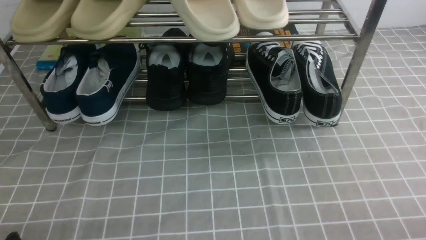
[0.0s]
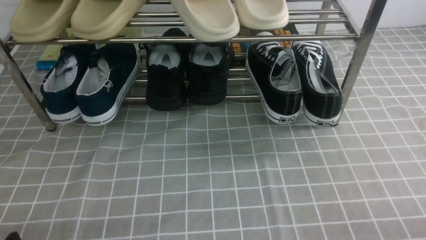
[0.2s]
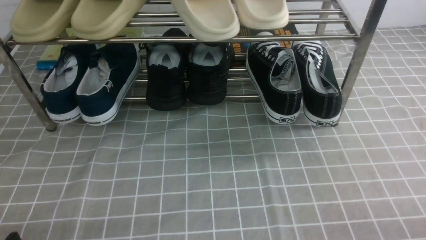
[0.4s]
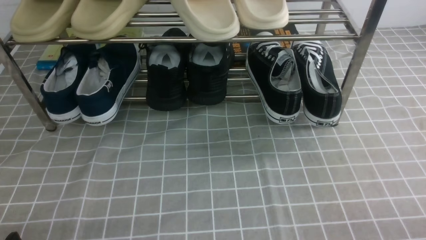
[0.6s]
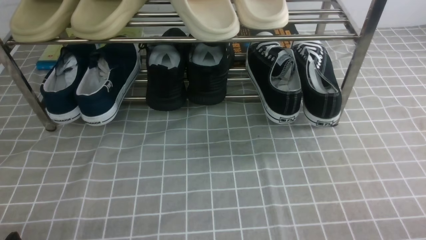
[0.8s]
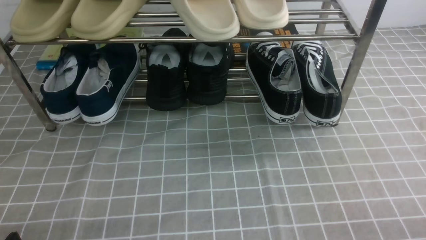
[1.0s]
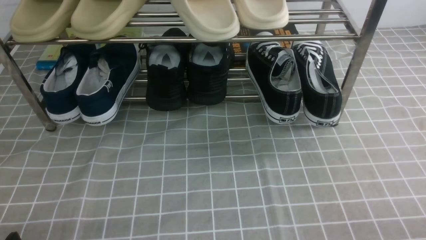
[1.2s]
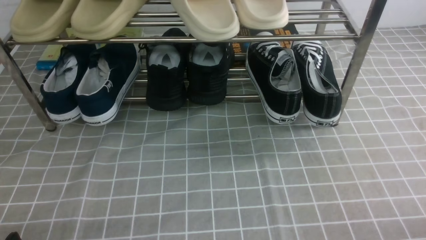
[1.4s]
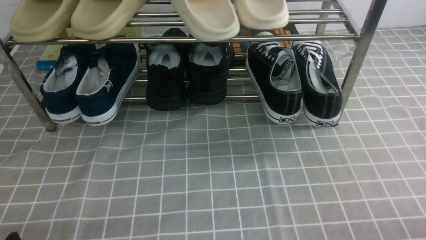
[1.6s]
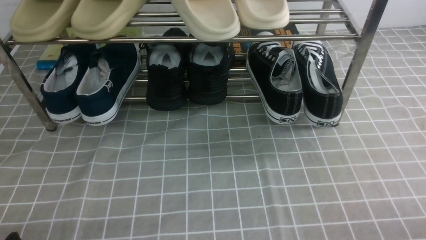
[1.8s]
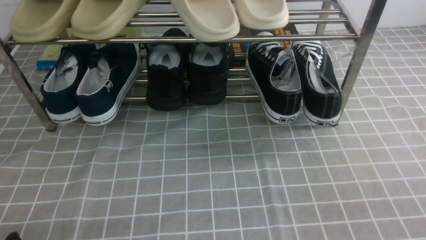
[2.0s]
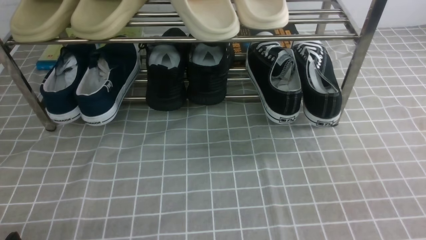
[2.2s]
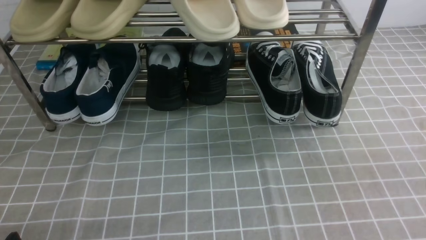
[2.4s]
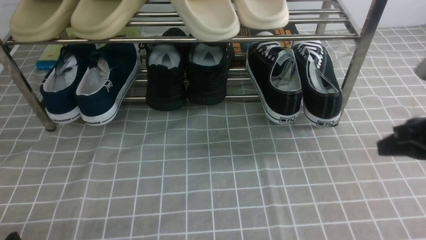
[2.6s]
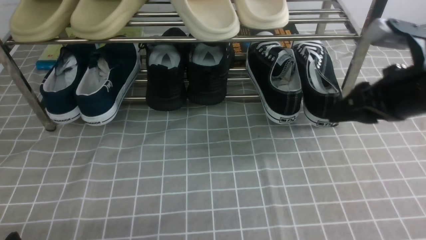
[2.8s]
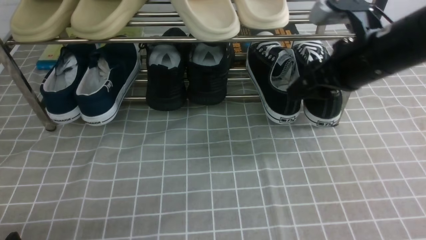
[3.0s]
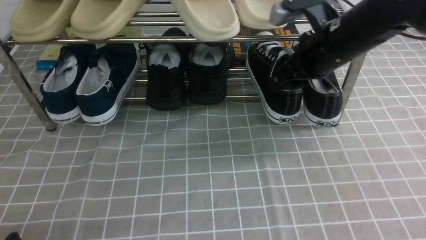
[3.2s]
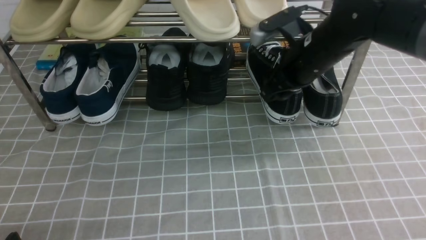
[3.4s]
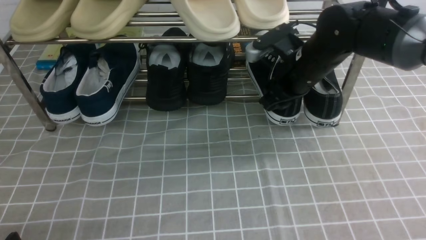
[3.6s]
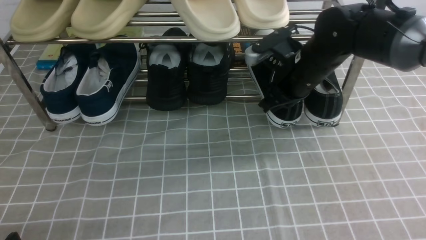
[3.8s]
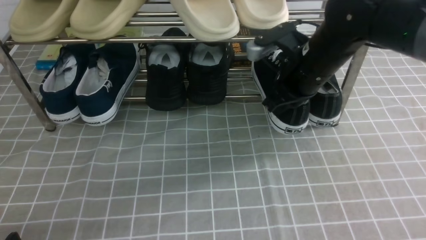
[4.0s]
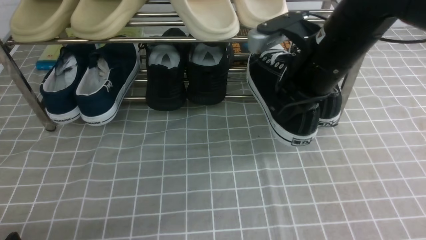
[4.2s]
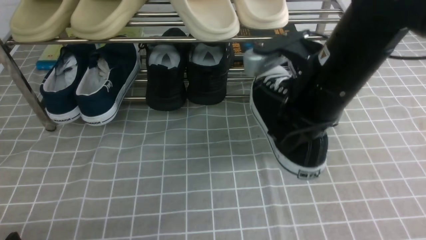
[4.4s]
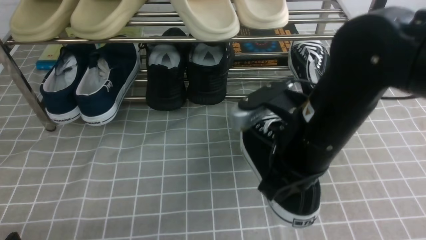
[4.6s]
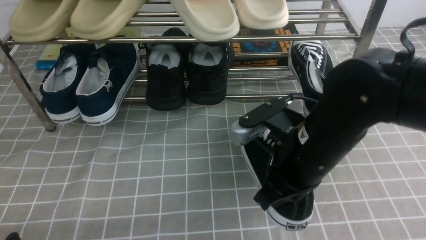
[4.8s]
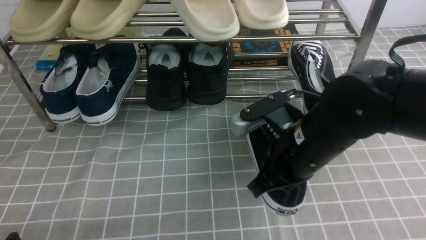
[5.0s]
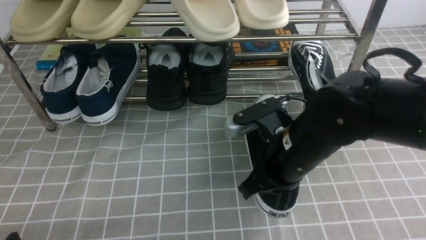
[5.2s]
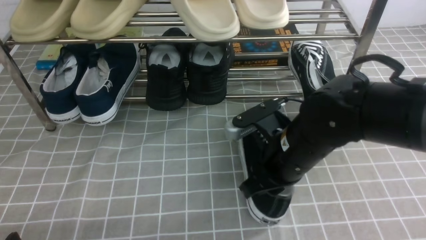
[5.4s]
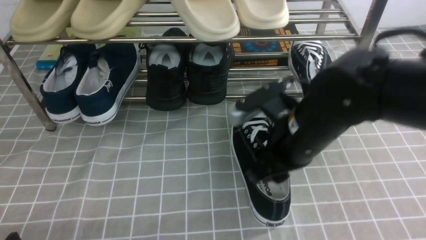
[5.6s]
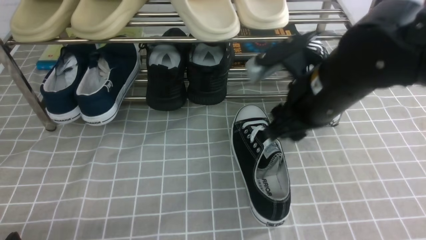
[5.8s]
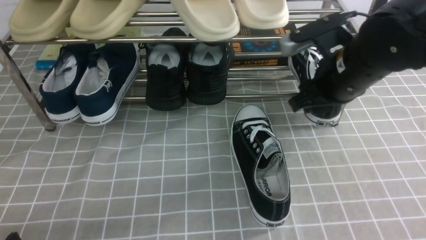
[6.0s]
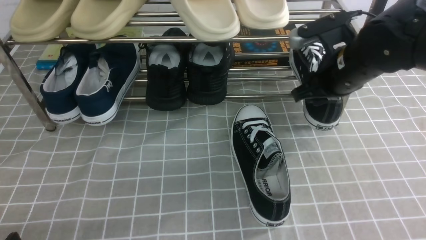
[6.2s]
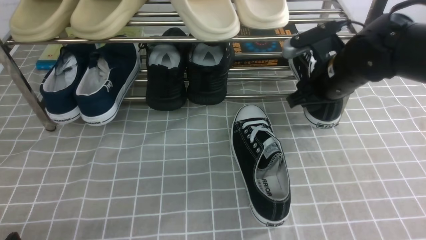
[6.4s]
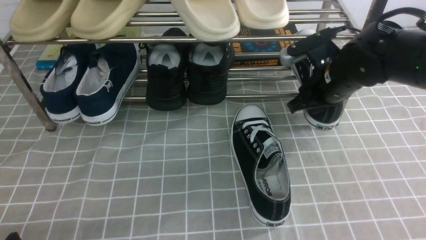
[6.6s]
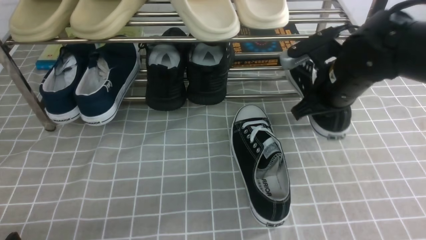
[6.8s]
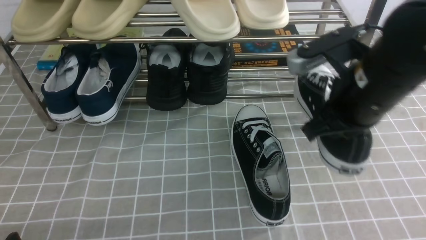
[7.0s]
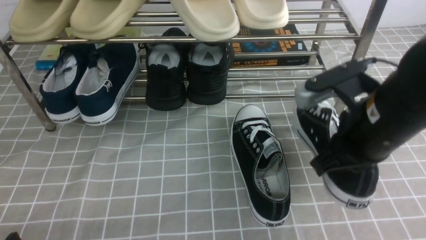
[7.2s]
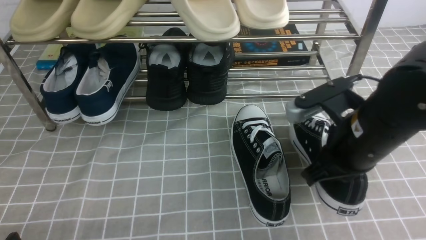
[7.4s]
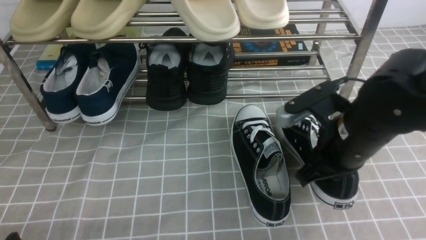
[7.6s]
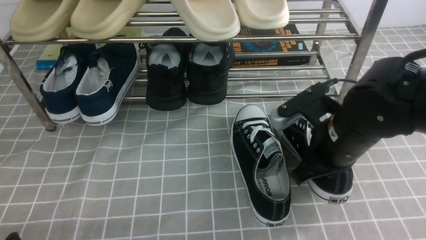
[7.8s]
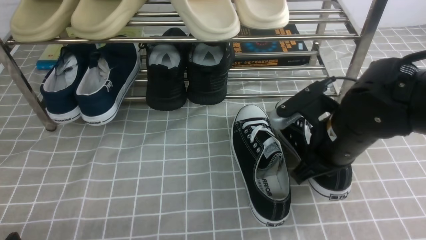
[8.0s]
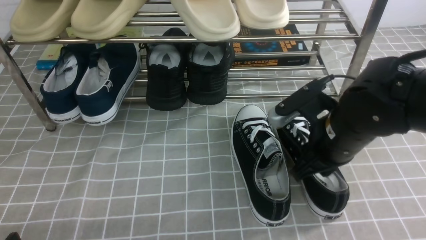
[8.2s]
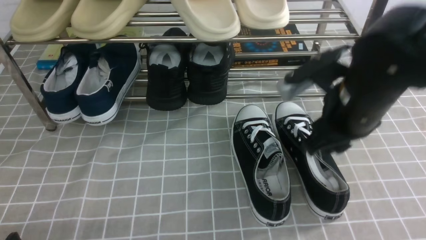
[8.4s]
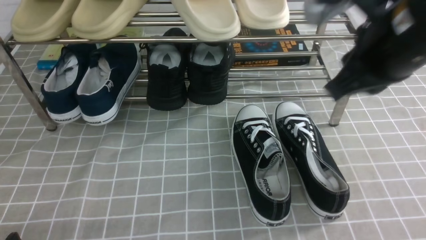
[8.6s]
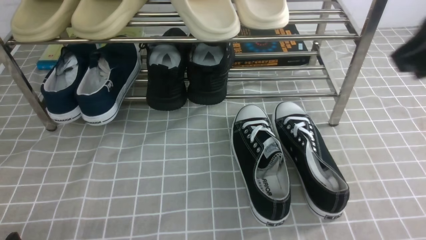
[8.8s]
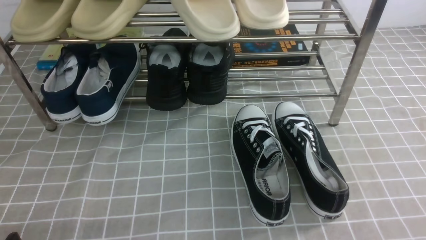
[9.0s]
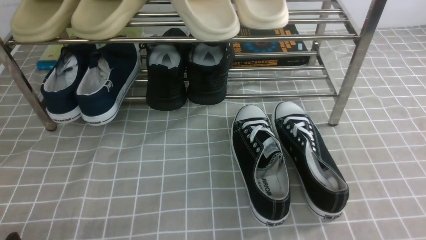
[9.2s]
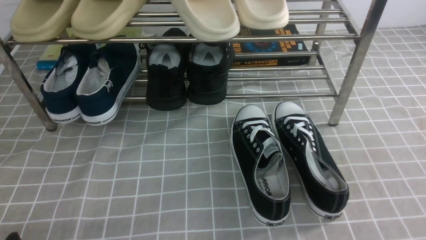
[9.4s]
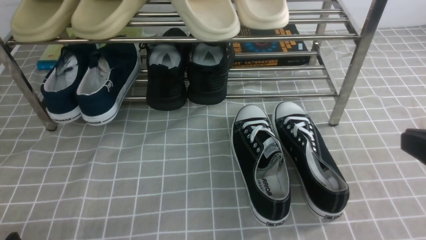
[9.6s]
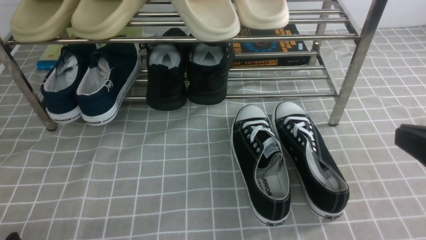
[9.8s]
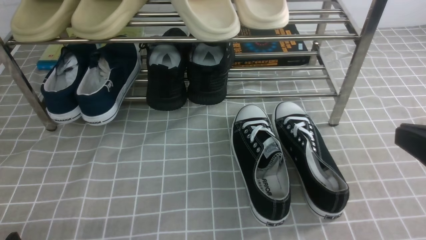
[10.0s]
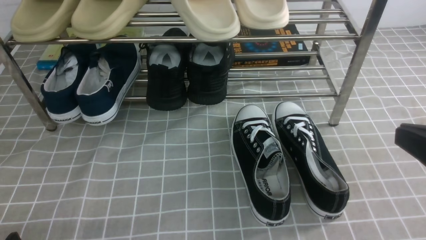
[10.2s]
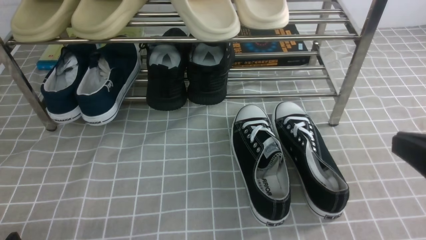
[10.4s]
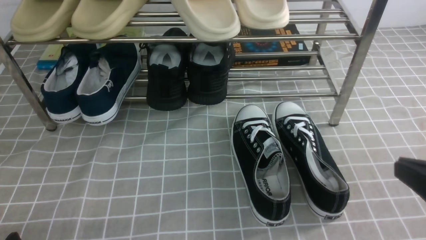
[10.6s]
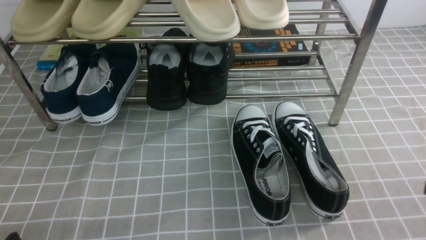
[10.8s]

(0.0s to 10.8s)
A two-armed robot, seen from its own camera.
Step, 0.0s - 4.0s: use the right arm to clamp a shoe on the right side of the shoe rack.
Step, 4.2s - 5.6s: use the right arm to take out the clamped shoe from the shoe rack and put it down.
Step, 5.8s - 6.2s: use the right arm to clamp a shoe on the right side of the shoe rack.
Step, 6.4s - 8.4s: use the right arm to take out the clamped shoe from the shoe rack and put it down.
1.6s - 3.0s: The right gripper is displaced forward, upward and to the left by roughly 35 cm, and opens its fingers.
3.0s - 4.6s: The right gripper heads to the left and backward, covering some 10 cm, and closes.
4.6s - 6.2s: The right gripper is displaced forward and to the right by some 15 cm, and opens up.
6.2s - 7.8s: The right gripper shifts roughly 10 cm backward, and closes.
7.8s - 9.2s: The right gripper moves upward, backward and to the right, approximately 25 cm, and opens, then closes once more.

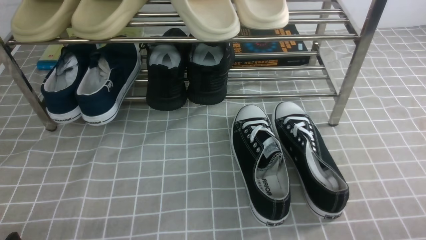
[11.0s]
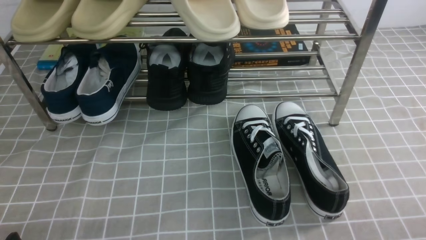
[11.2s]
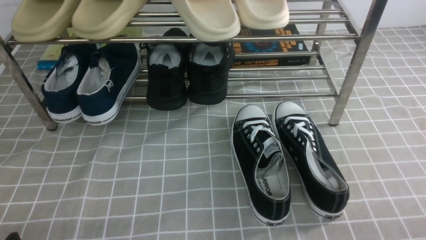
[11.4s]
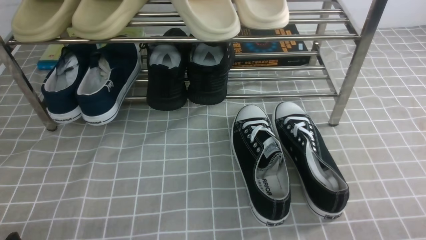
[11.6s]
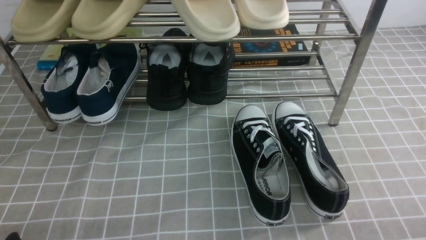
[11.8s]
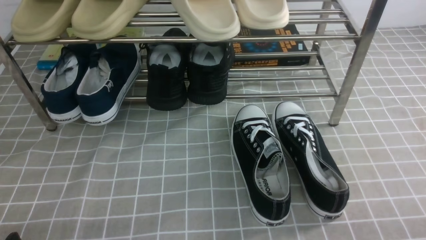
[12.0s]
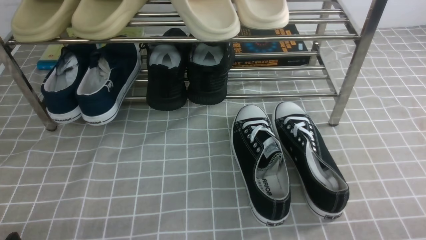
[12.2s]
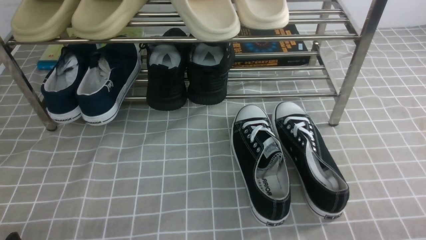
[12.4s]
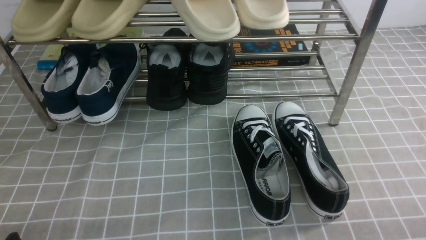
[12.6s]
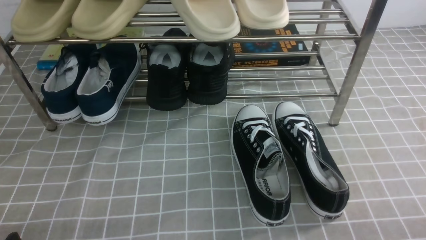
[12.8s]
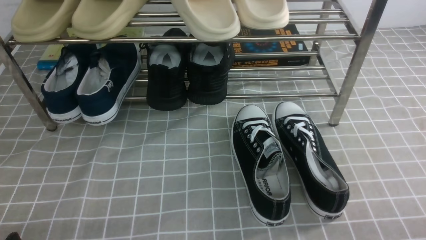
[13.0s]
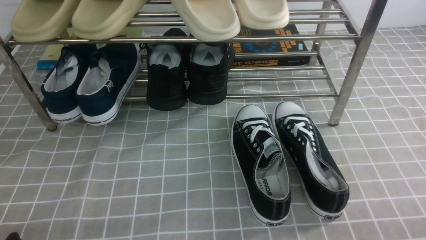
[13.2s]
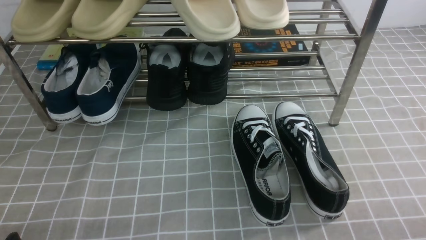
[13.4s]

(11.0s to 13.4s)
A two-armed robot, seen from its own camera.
12.2s - 13.4s: Both grippers stay about where they are.

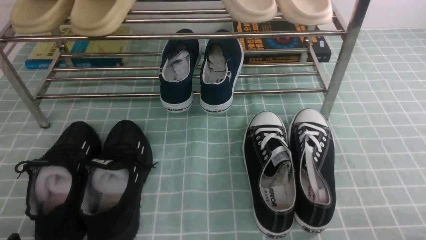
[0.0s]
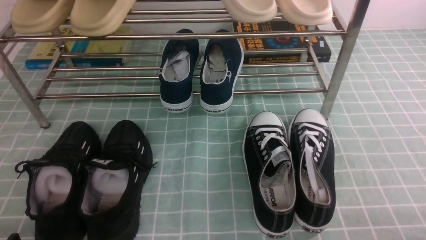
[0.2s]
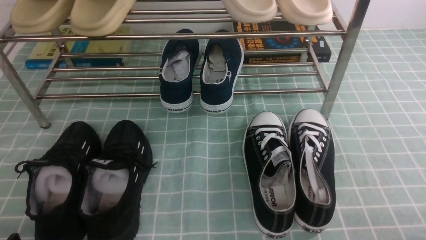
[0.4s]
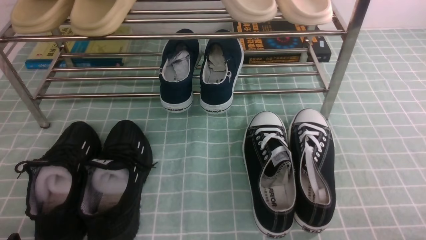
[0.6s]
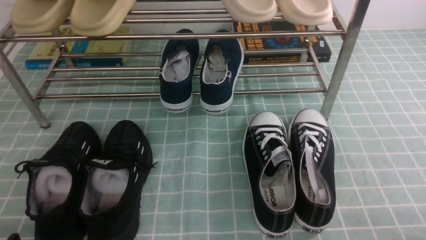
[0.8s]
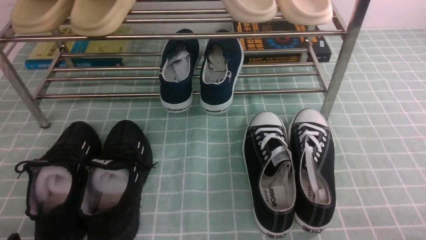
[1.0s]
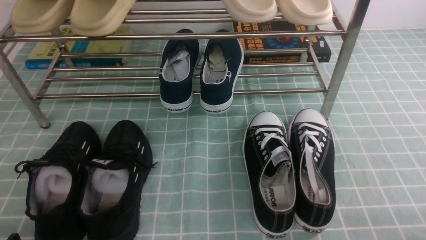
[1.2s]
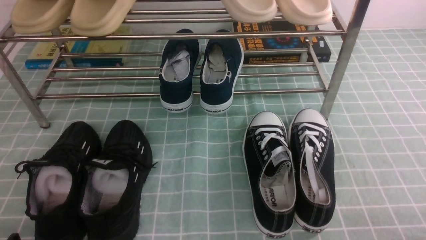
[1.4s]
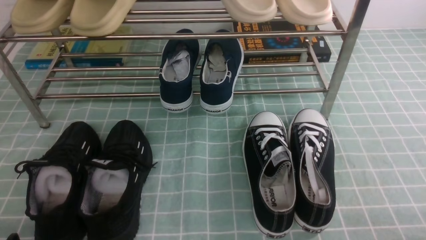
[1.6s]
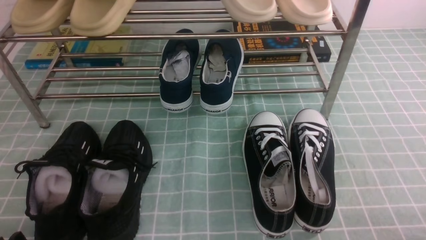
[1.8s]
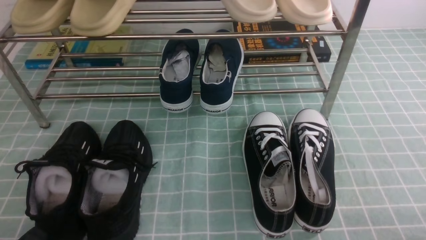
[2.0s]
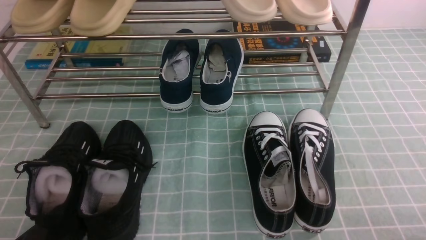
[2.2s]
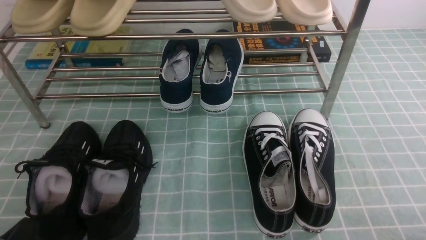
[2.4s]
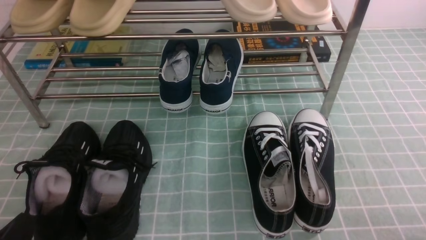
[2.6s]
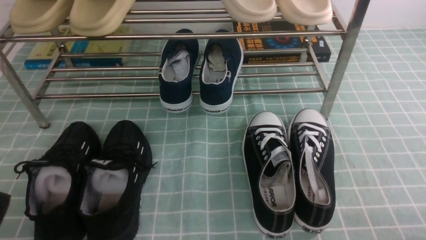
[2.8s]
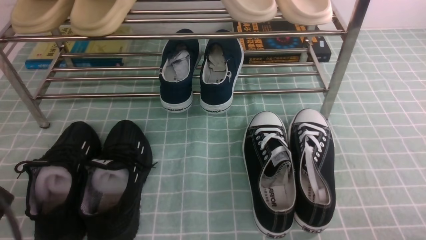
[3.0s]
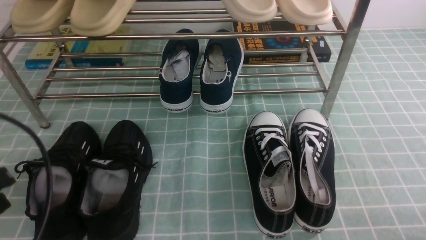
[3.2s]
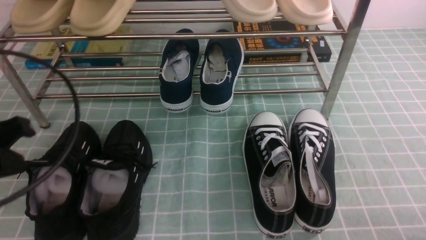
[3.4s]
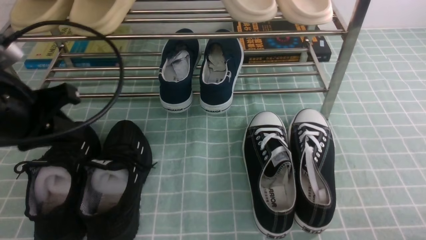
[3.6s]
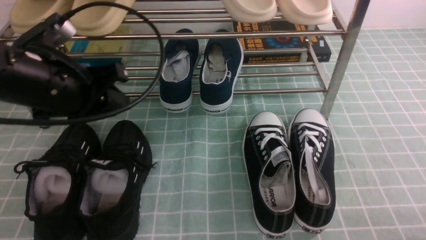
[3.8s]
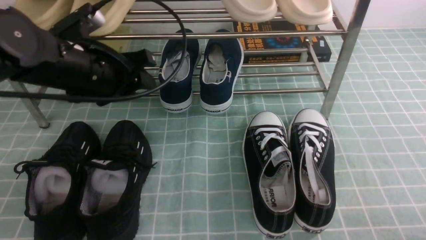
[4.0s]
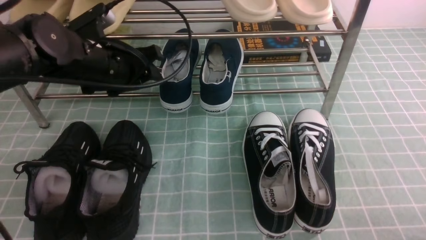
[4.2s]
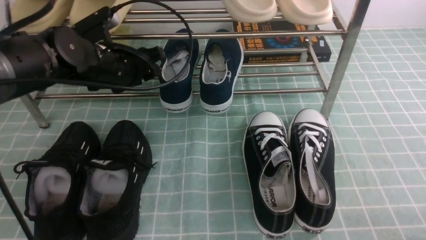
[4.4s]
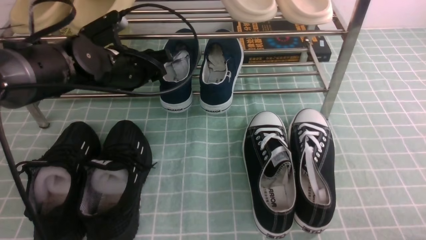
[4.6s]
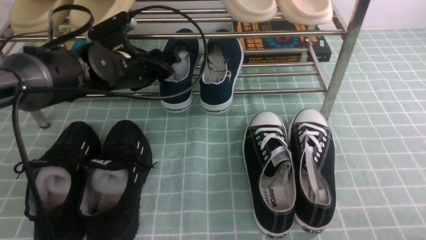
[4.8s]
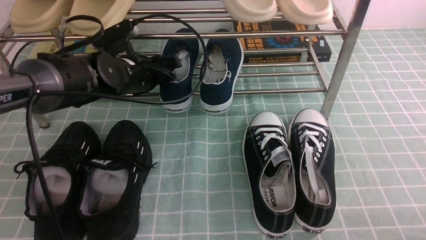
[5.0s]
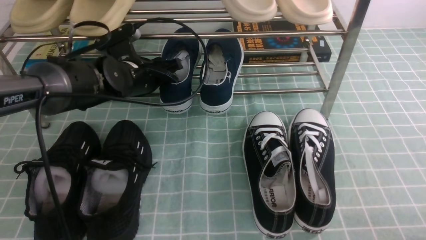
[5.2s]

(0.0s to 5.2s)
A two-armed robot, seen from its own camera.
1.8s - 3.4s: The left gripper moves upward and forward, some 20 cm, and closes.
3.4s - 5.2s: The left gripper moves forward, to the right and downward, approximately 25 cm, and opens.
